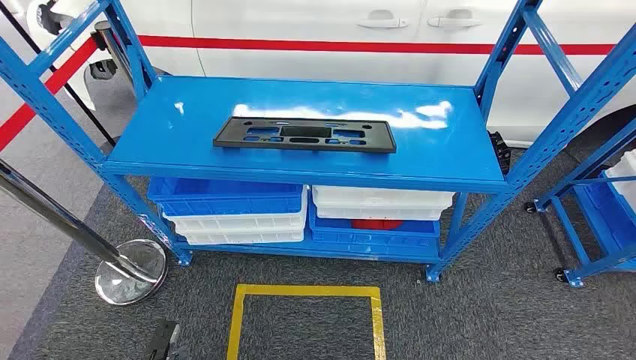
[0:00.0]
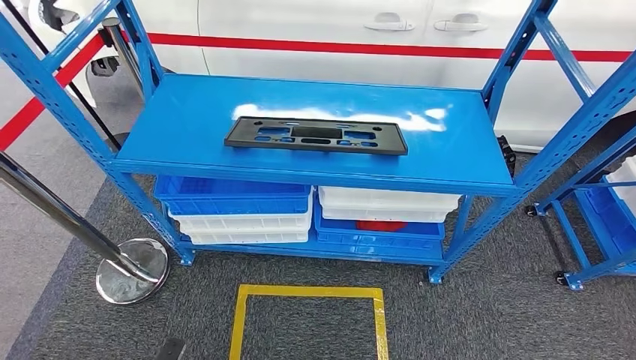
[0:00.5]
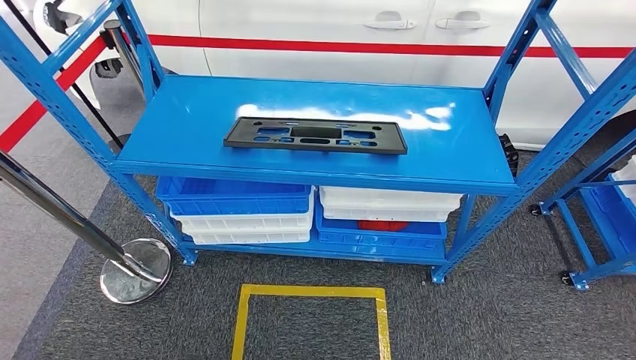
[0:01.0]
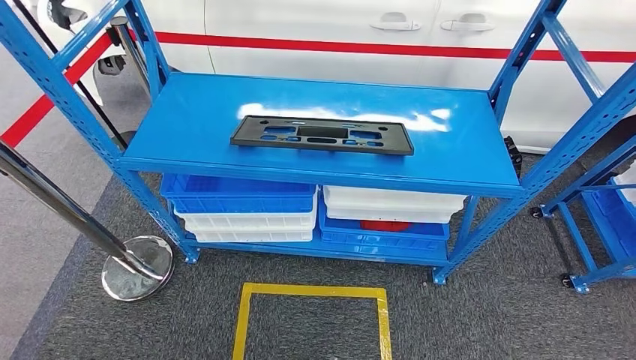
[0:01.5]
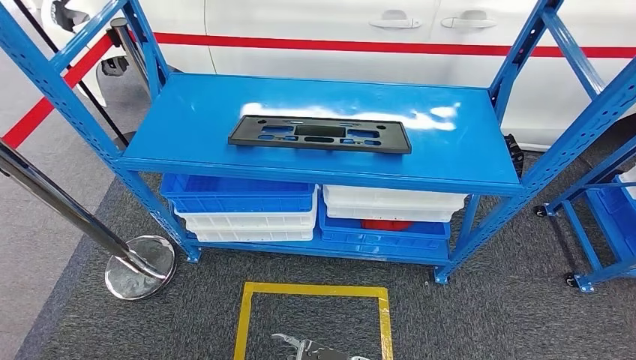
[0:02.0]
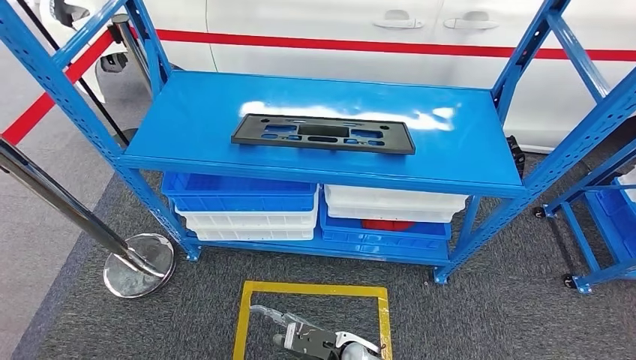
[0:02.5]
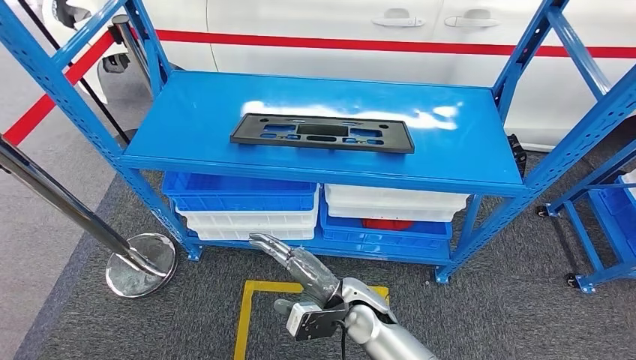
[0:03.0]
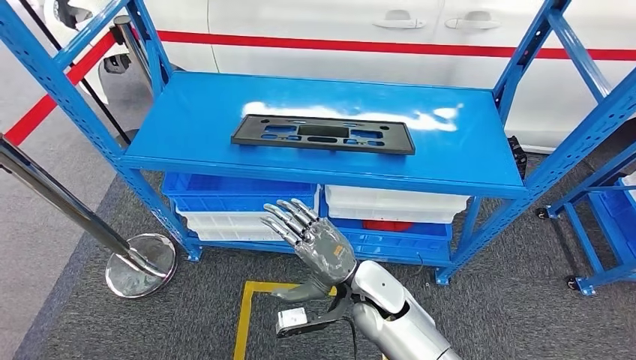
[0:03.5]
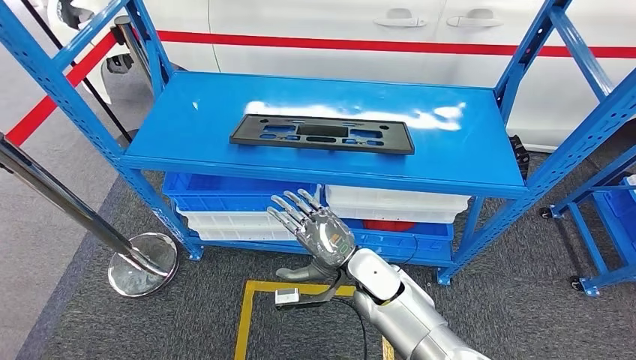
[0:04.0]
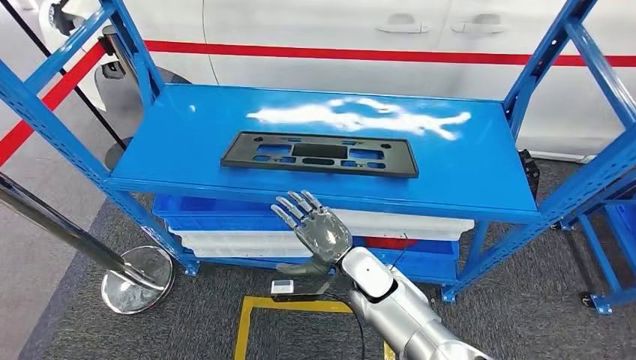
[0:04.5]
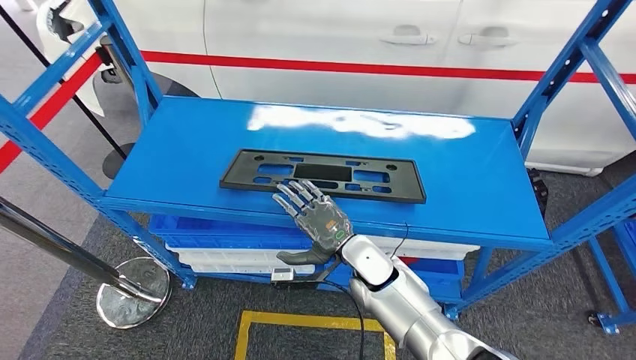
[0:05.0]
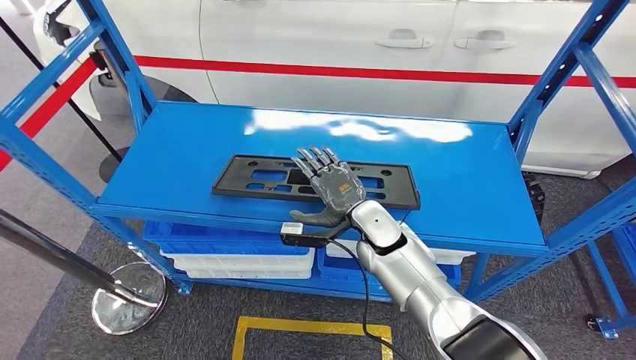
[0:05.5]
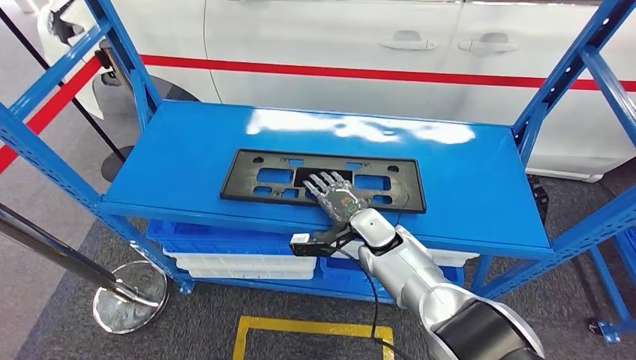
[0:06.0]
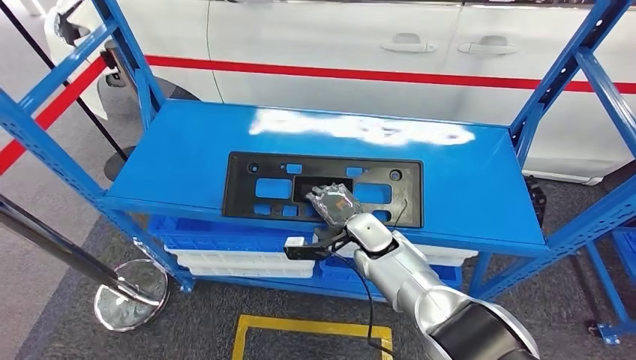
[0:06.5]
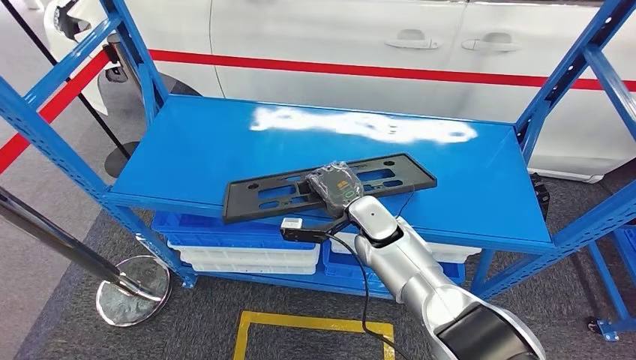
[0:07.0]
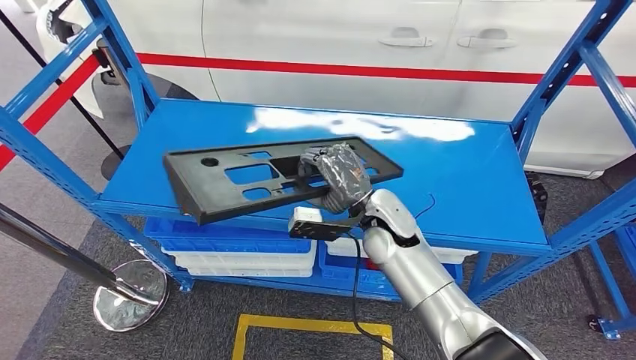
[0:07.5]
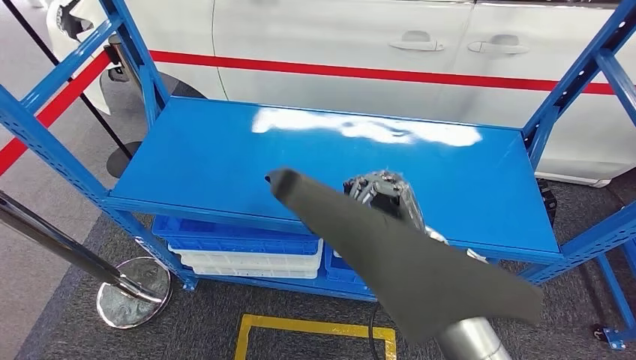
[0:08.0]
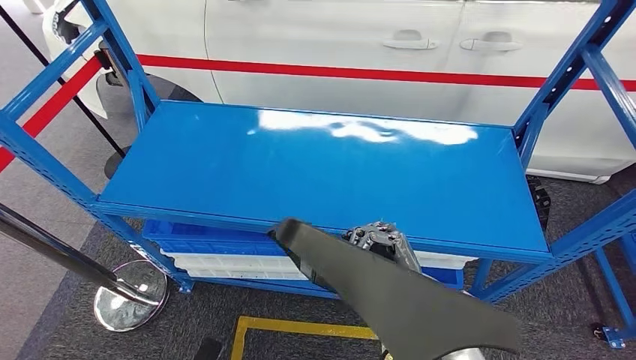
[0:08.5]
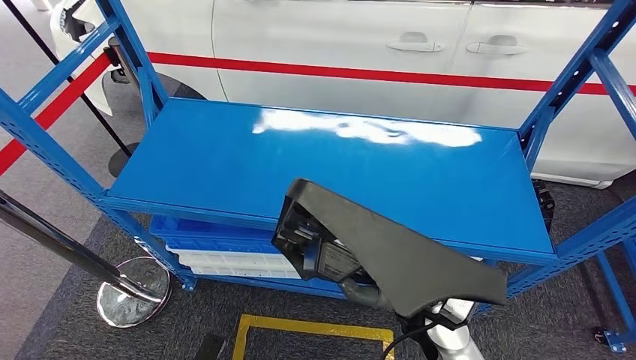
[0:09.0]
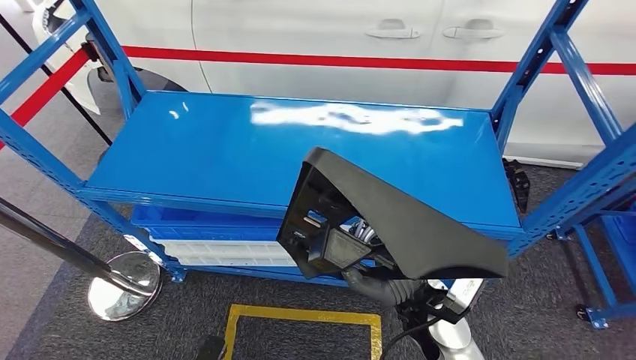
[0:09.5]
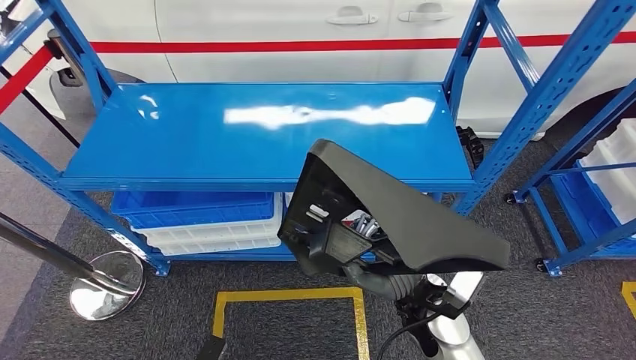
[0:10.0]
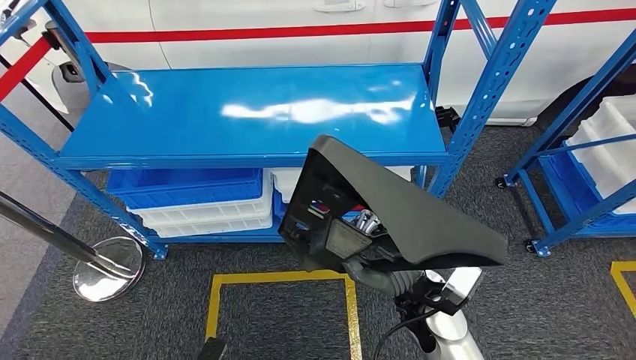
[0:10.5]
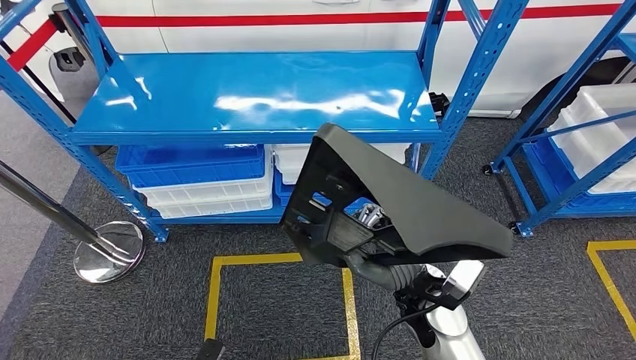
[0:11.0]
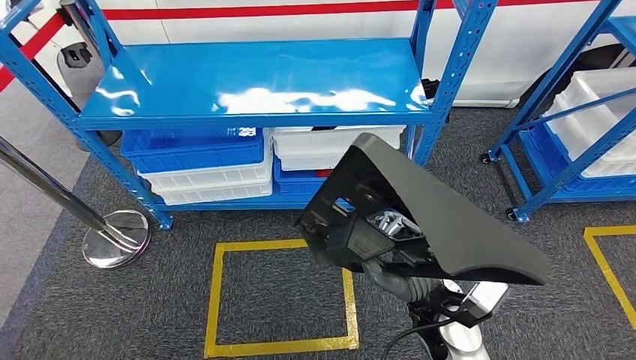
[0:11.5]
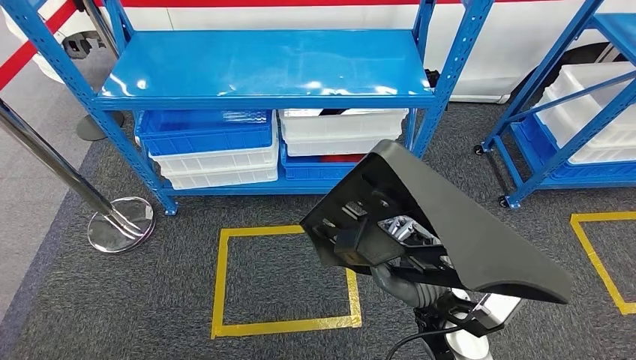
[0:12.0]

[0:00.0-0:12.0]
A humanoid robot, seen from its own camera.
Step, 0:00.0 to 0:07.5: Pick up the large material from the shelf.
0:02.0 to 0:04.0: The right hand heads upward and forward, covering some 25 cm.

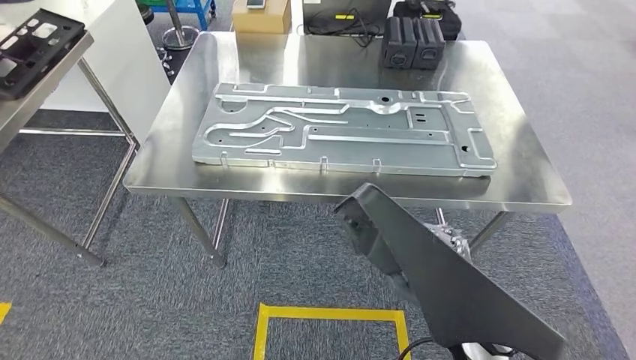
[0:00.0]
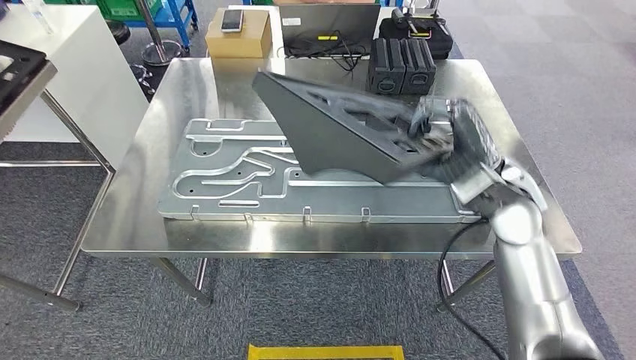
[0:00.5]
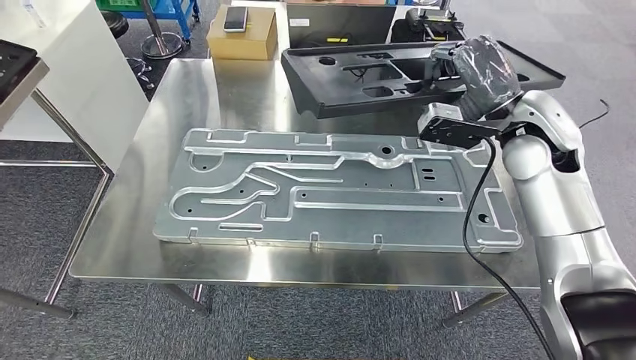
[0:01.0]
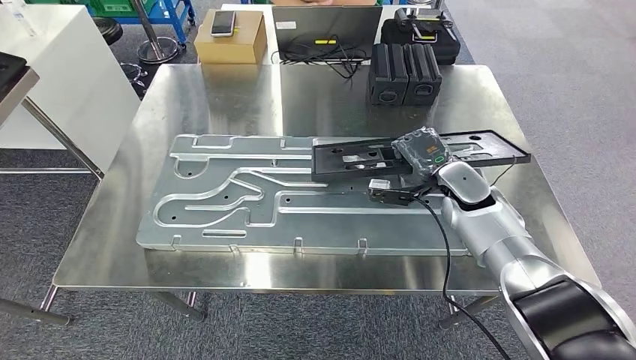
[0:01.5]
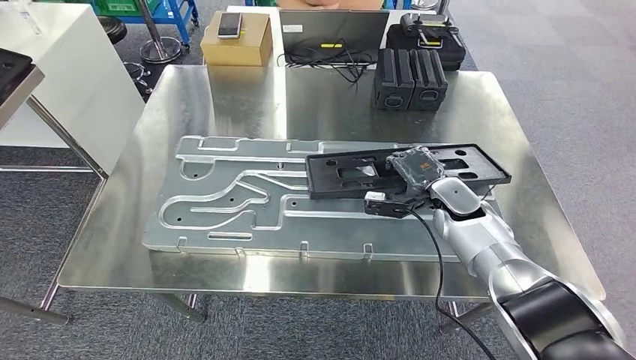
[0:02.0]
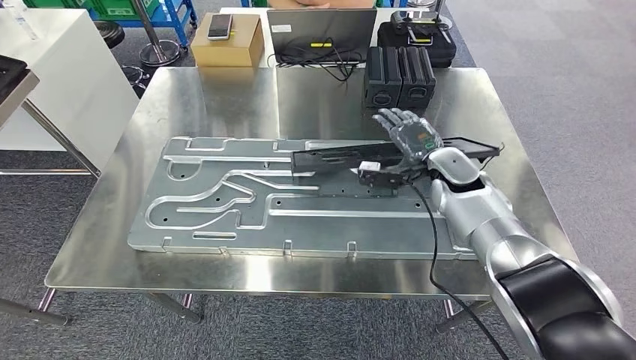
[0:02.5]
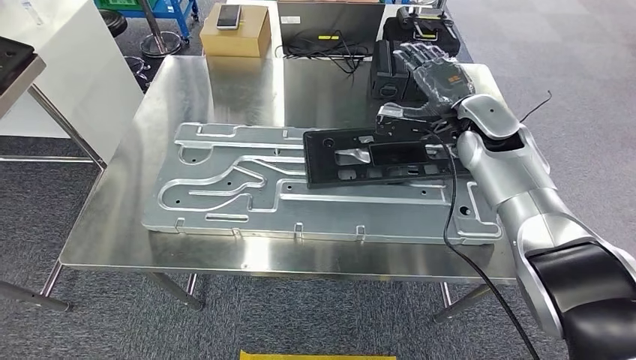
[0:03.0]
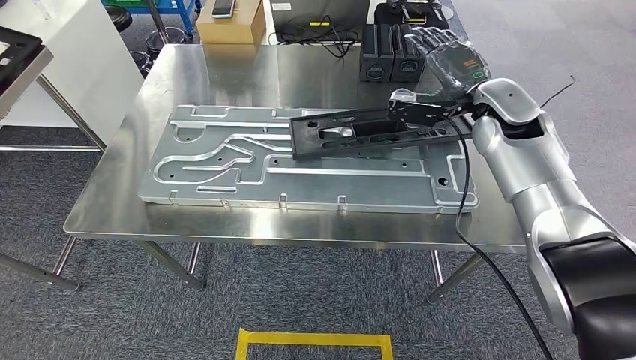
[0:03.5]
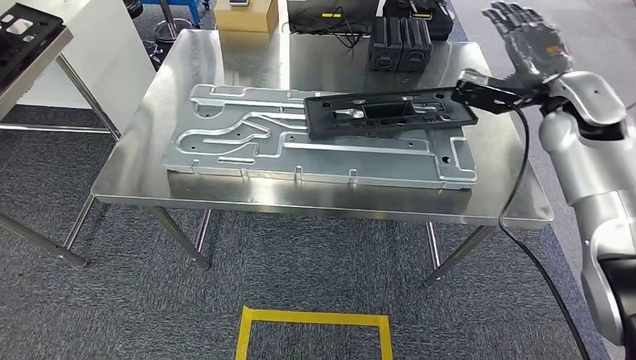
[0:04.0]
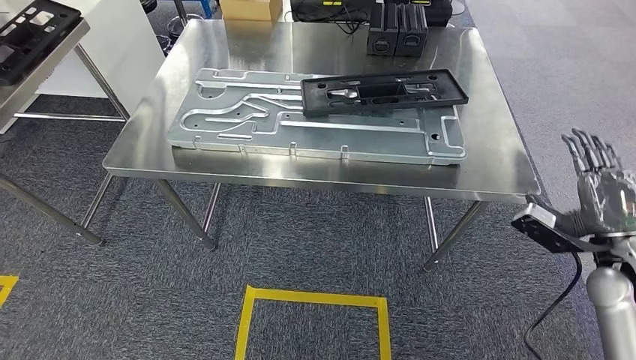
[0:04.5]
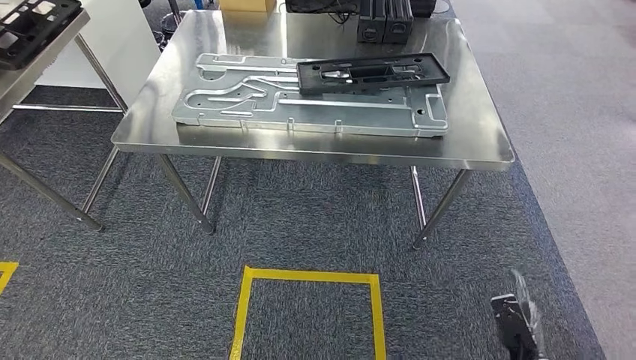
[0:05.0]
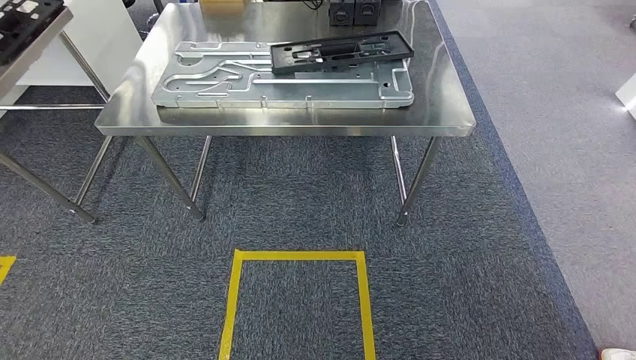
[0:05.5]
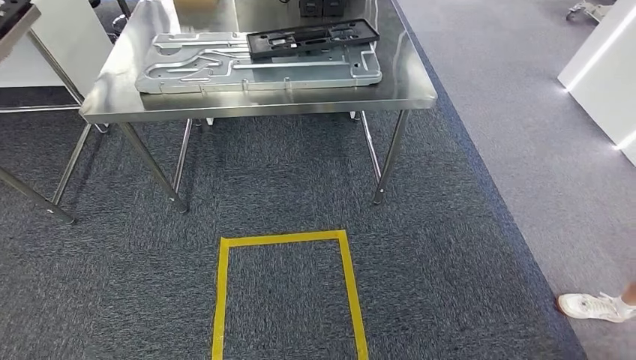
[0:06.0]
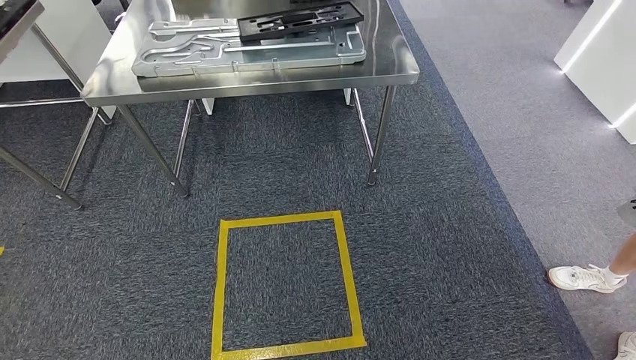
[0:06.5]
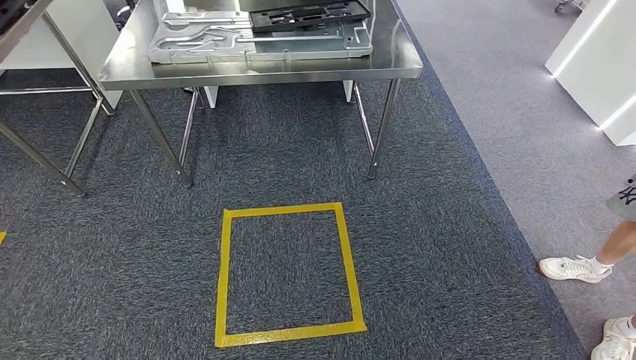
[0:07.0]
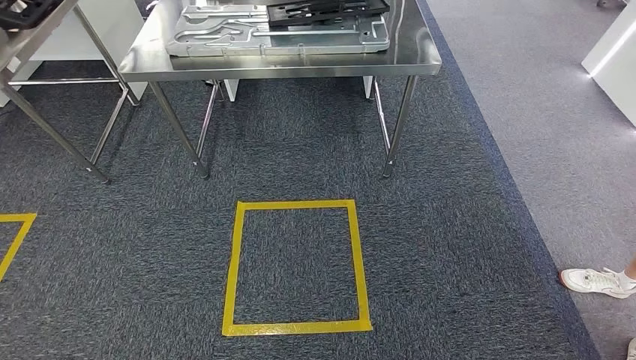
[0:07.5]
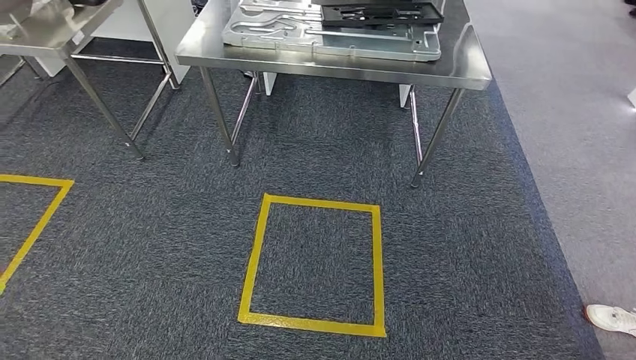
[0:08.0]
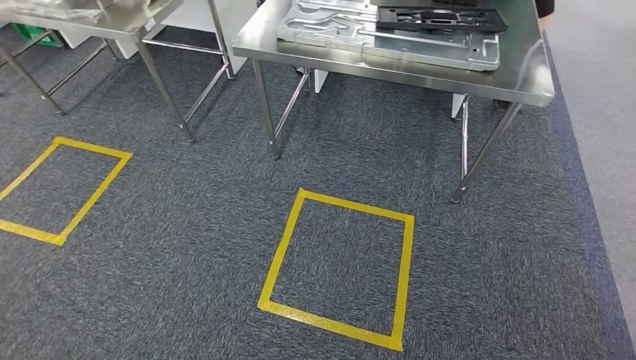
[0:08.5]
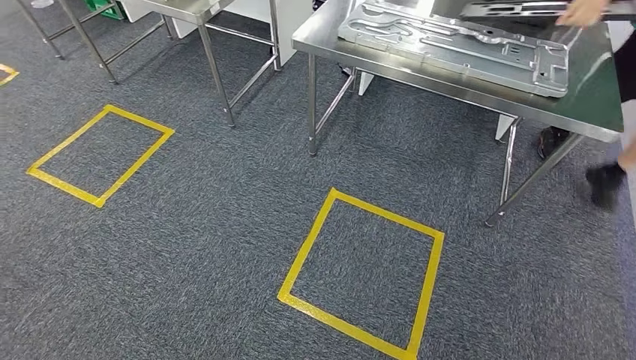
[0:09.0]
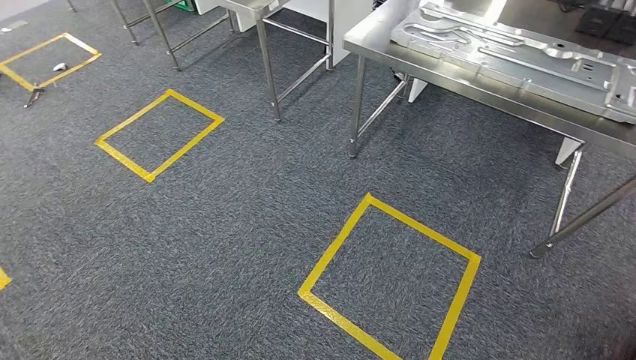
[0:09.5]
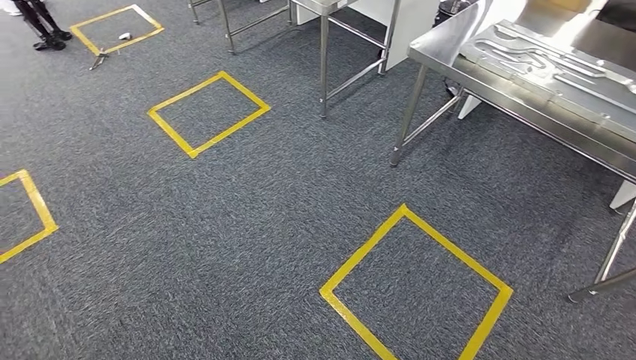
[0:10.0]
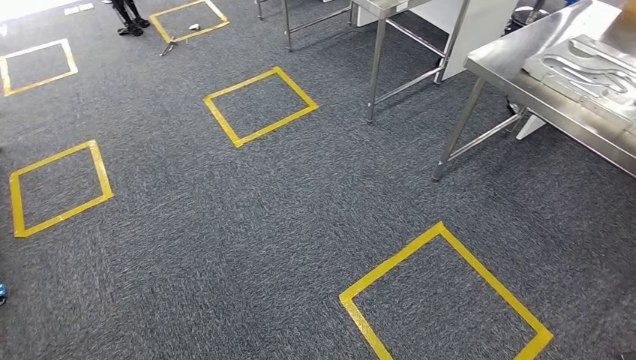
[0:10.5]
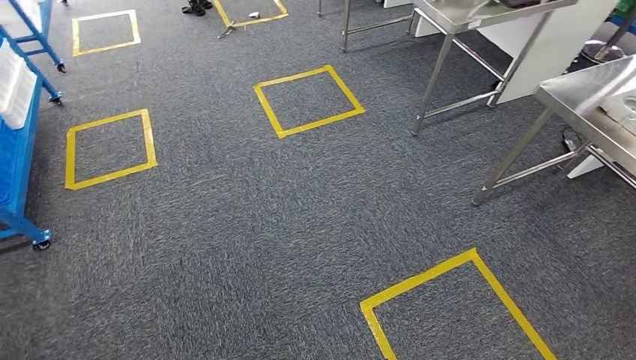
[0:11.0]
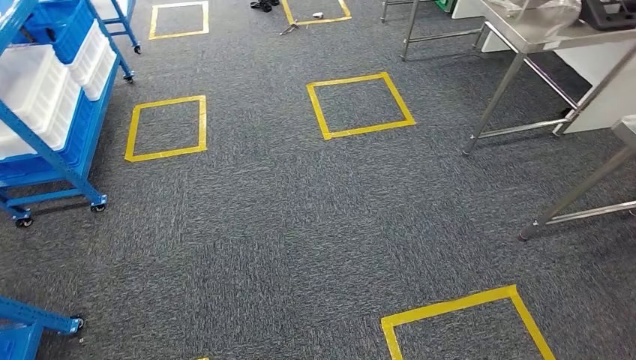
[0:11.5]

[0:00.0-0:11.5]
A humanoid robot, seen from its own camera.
Step, 0:02.5 to 0:05.0: Insert the large material into the corresponding hole on the workbench.